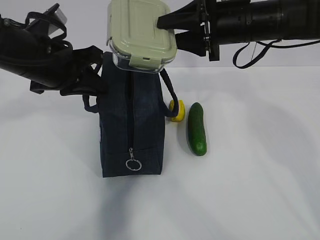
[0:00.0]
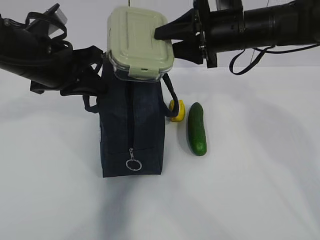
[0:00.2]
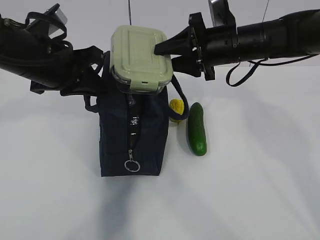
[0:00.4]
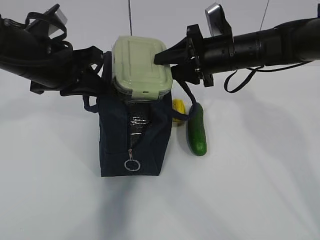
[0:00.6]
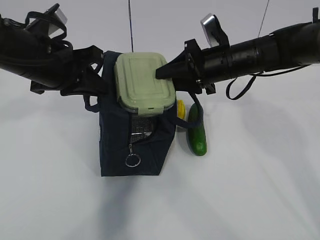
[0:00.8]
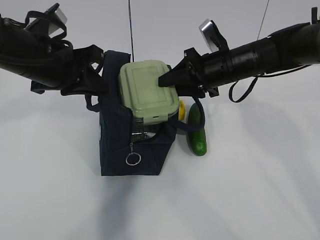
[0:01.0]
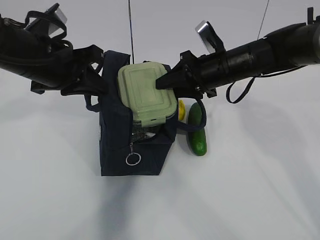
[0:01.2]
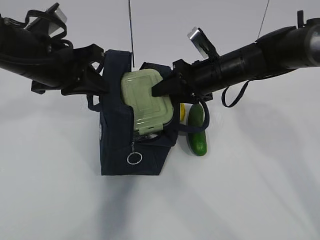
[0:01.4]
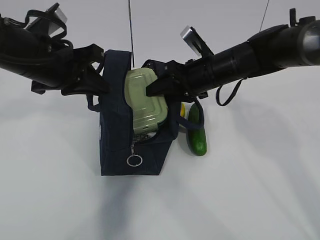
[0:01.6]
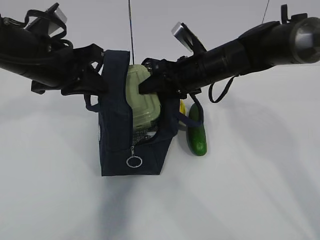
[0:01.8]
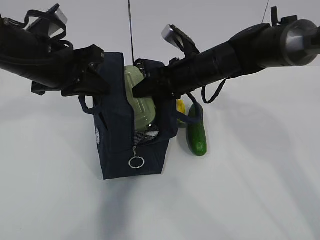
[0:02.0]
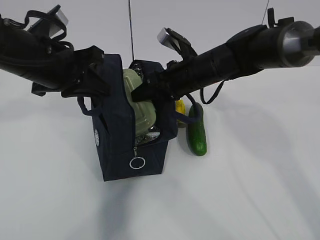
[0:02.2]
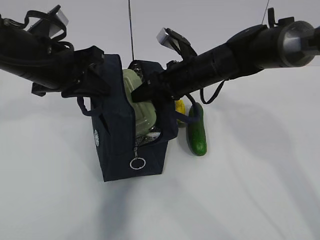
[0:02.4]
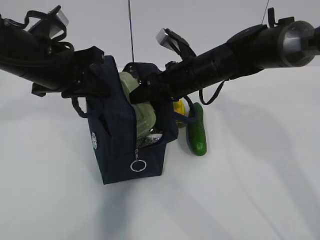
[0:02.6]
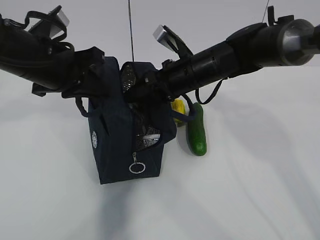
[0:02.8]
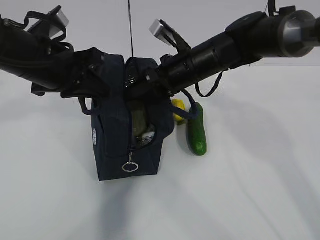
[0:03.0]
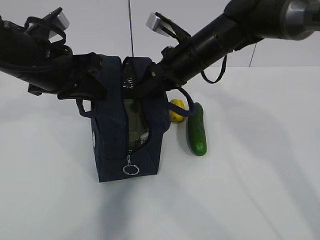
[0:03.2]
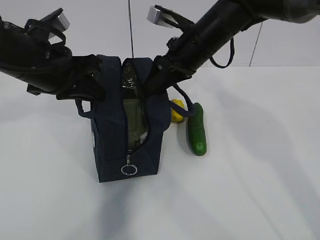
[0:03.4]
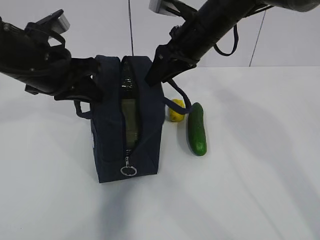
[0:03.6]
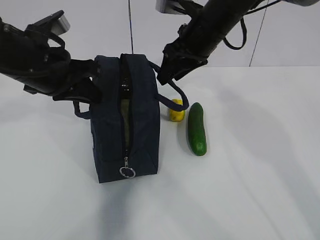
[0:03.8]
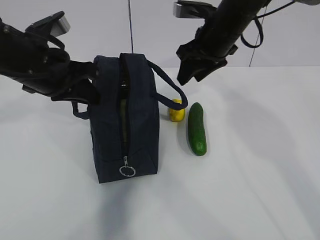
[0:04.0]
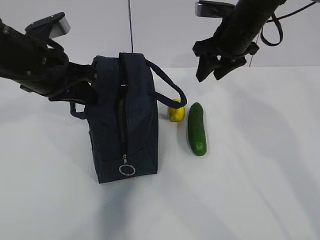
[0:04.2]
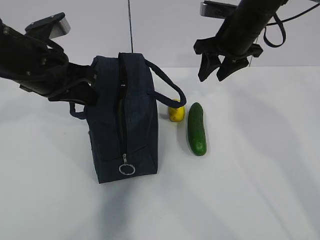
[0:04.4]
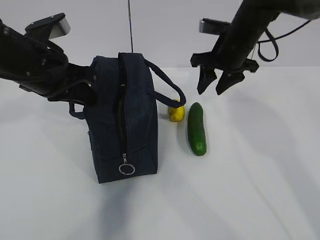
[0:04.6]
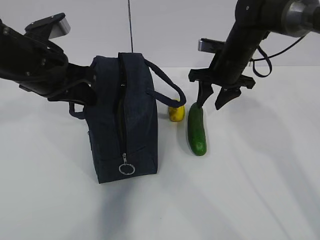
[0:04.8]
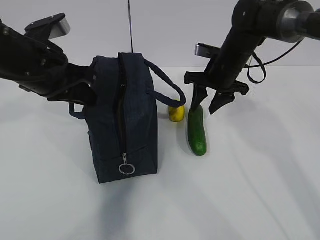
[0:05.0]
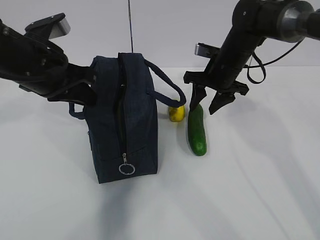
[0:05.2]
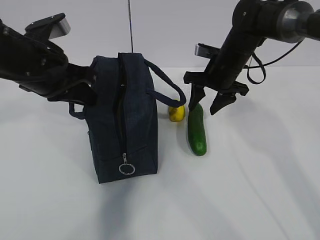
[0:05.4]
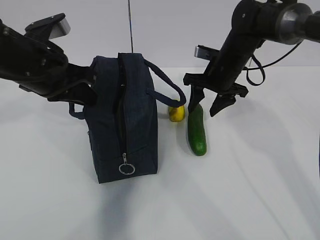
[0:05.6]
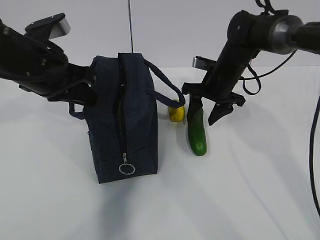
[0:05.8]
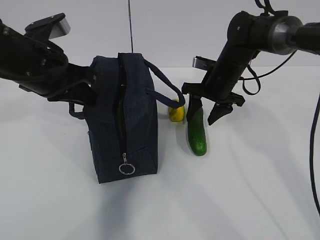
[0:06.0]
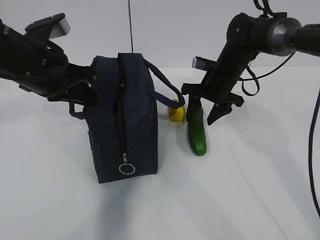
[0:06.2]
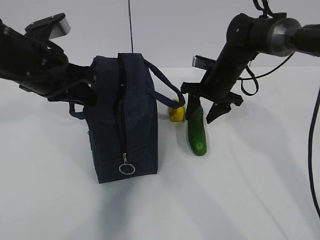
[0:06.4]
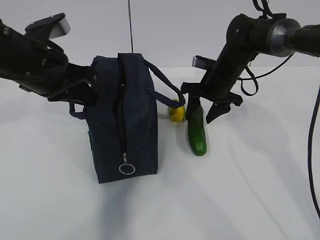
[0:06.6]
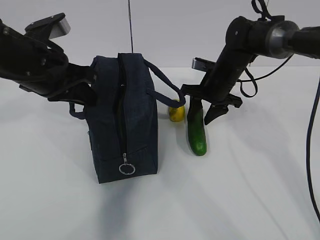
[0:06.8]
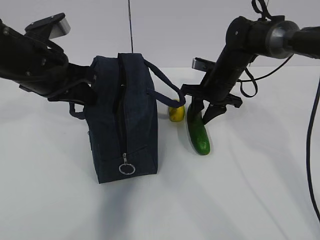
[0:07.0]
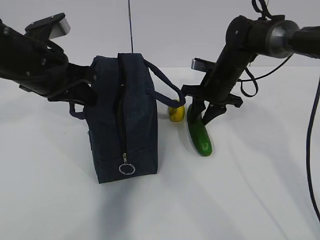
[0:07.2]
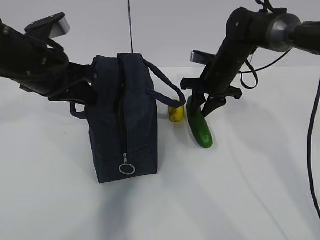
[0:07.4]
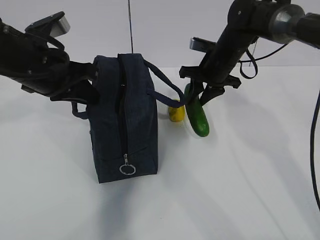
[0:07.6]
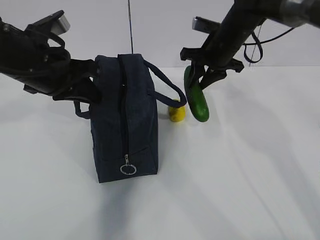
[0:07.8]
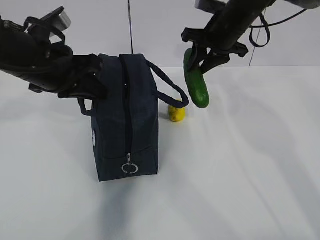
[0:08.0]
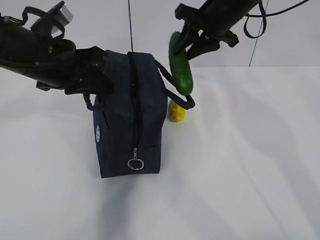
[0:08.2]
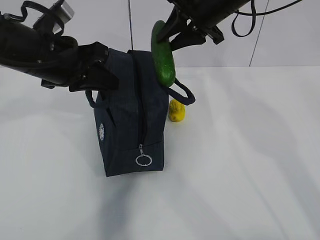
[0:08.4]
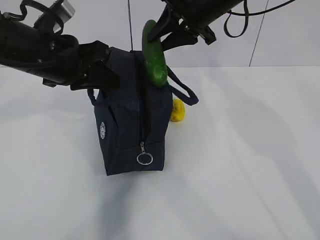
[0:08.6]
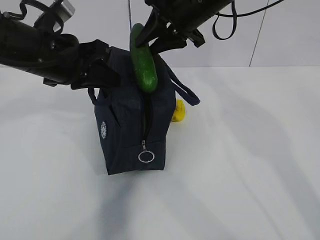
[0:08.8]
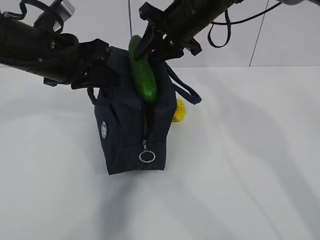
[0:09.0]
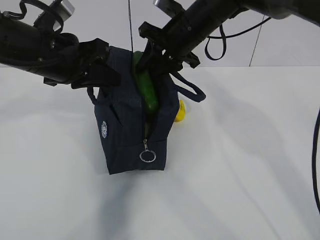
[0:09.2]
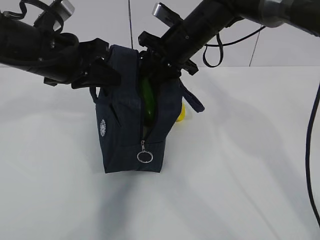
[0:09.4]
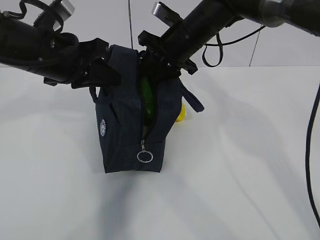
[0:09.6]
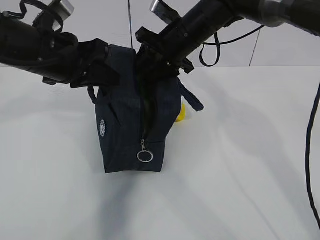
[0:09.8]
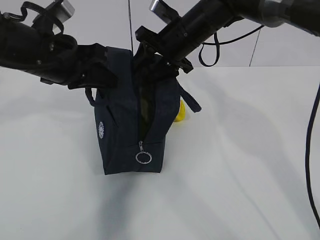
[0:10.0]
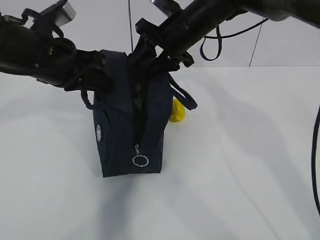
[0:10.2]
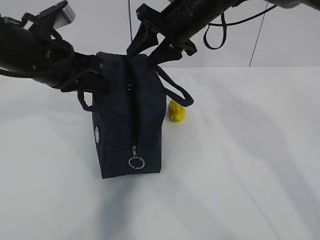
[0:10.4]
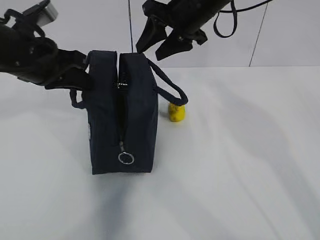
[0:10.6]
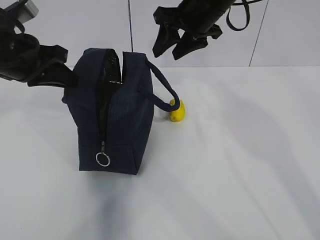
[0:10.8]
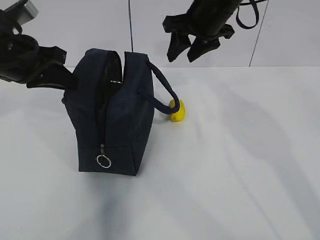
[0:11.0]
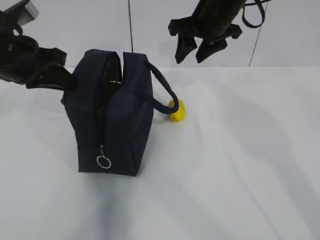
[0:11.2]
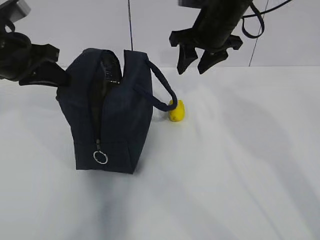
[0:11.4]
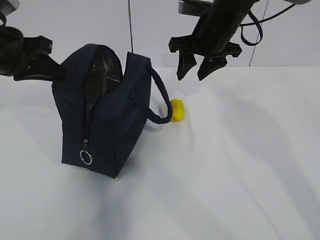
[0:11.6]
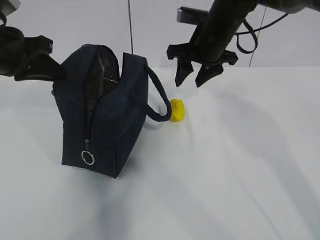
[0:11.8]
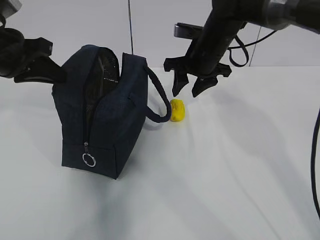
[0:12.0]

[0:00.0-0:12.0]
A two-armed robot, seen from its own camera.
Step, 0:00.0 to 0:01.8: Grab the cucumber with your right hand.
Step, 0:02.0 to 0:04.0: Place it into the bag with your right hand.
Step, 0:04.2 to 0:08.4: Grab the lemon with your right hand.
0:00.0 to 0:01.6: The right gripper heads downward, covering some 10 cm.
0:03.0 to 0:04.4: The right gripper is displaced to the right by roughly 10 cm.
0:04.4 to 0:06.0: The right gripper goes approximately 10 cm downward.
0:06.0 to 0:07.6: The right gripper closes up.
0:07.6 to 0:09.0: The right gripper heads upward and to the left, covering about 10 cm.
0:09.0 to 0:10.4: The grippers move only a little.
0:10.4 to 0:12.0: The left gripper moves to the left, roughly 5 cm. The right gripper heads downward, covering some 5 cm.

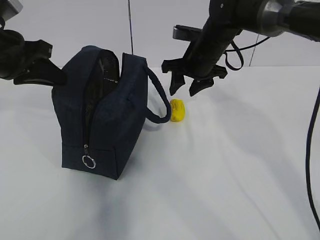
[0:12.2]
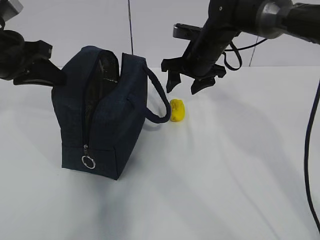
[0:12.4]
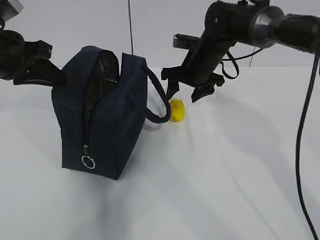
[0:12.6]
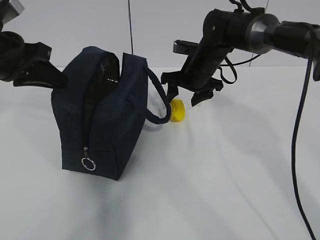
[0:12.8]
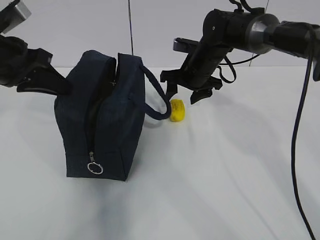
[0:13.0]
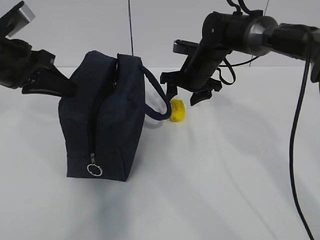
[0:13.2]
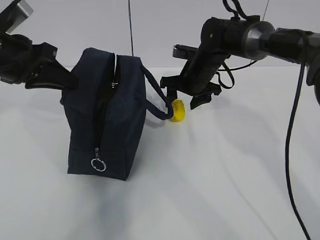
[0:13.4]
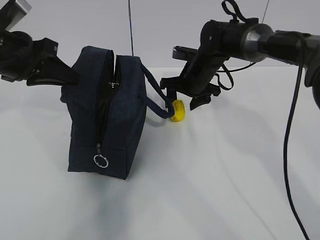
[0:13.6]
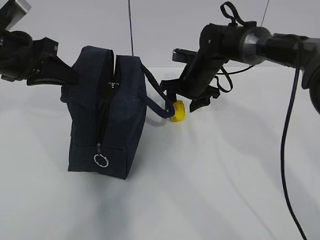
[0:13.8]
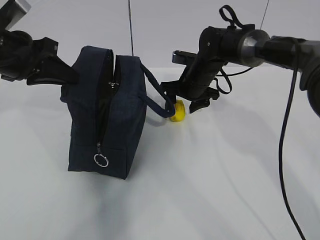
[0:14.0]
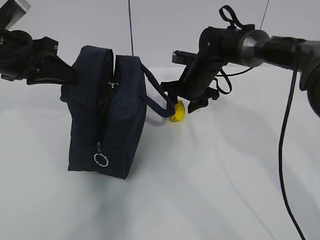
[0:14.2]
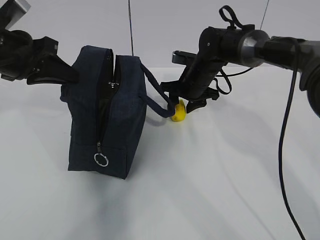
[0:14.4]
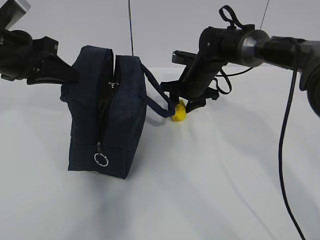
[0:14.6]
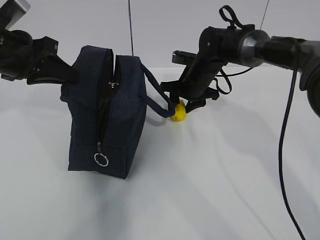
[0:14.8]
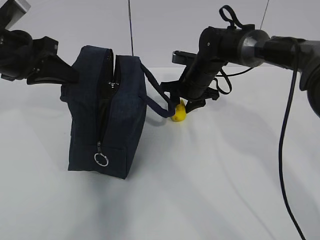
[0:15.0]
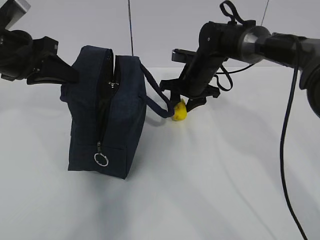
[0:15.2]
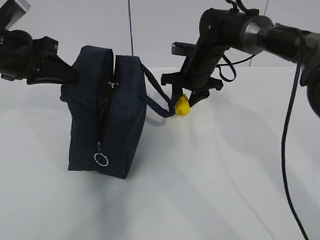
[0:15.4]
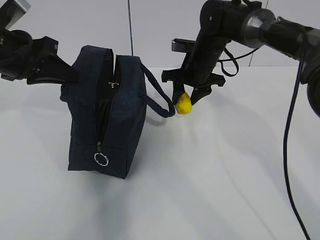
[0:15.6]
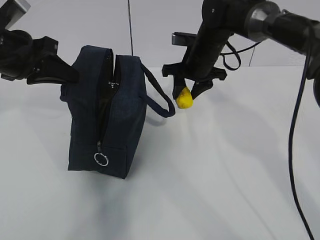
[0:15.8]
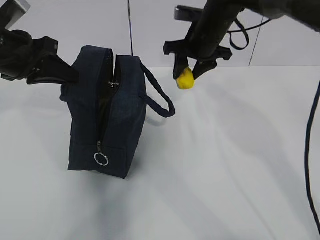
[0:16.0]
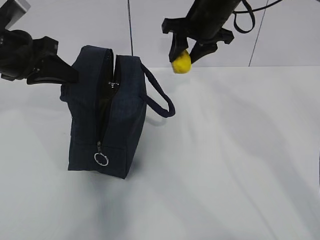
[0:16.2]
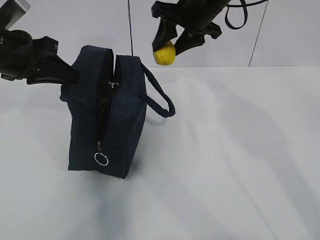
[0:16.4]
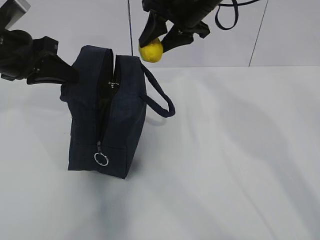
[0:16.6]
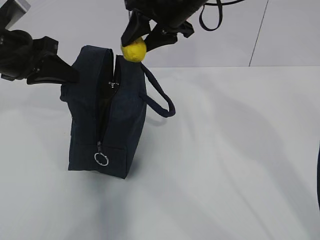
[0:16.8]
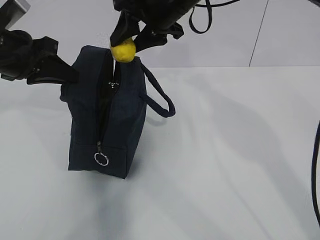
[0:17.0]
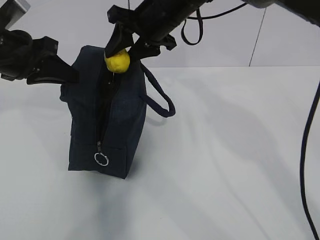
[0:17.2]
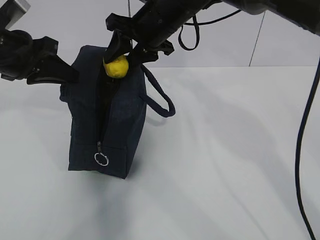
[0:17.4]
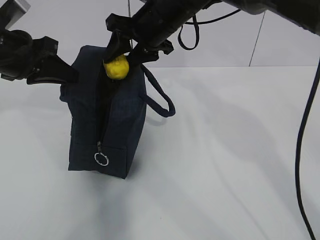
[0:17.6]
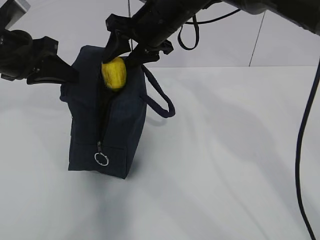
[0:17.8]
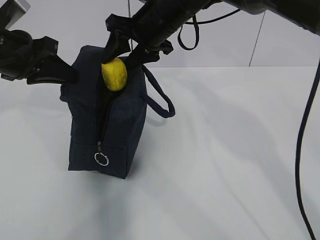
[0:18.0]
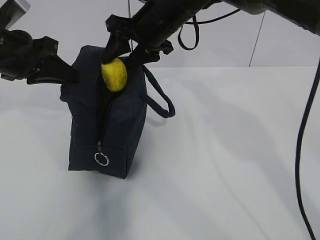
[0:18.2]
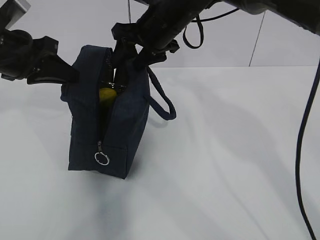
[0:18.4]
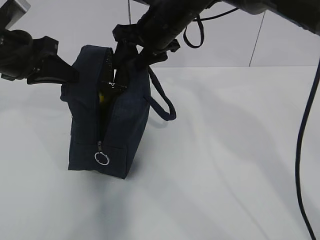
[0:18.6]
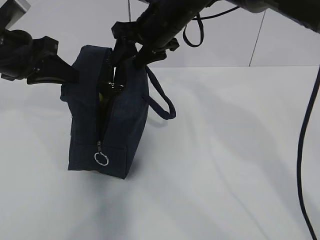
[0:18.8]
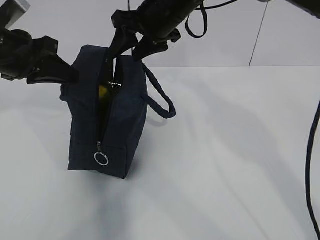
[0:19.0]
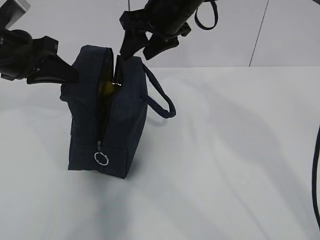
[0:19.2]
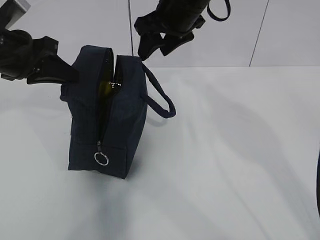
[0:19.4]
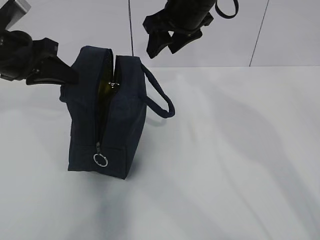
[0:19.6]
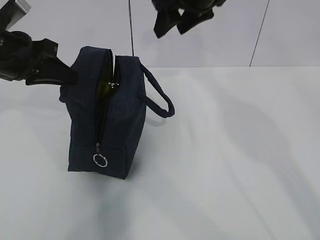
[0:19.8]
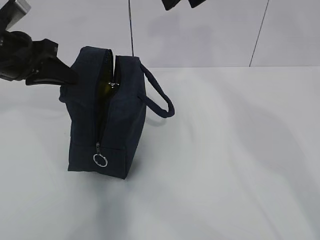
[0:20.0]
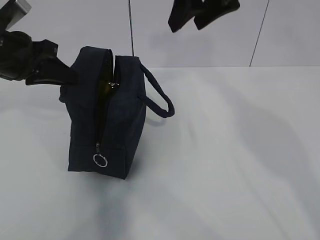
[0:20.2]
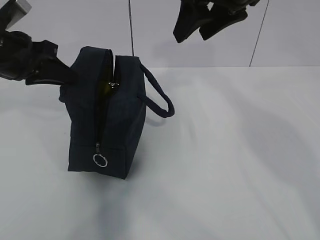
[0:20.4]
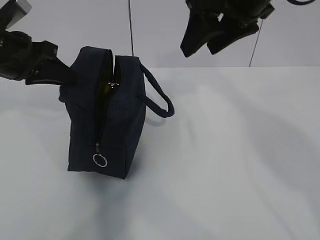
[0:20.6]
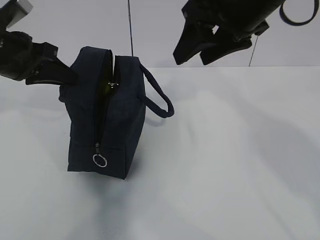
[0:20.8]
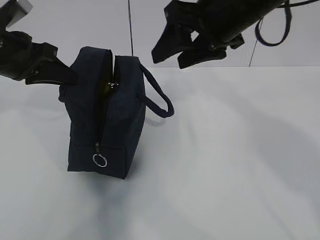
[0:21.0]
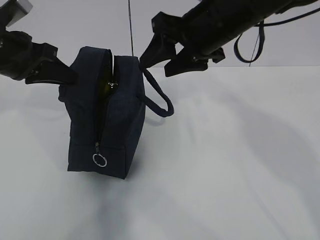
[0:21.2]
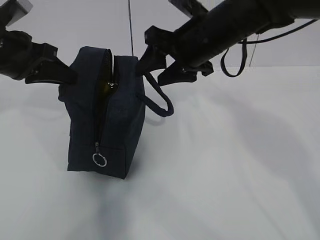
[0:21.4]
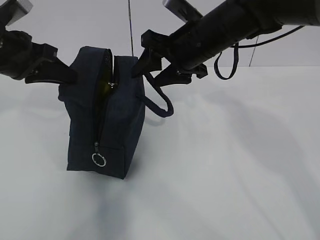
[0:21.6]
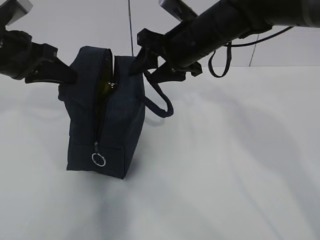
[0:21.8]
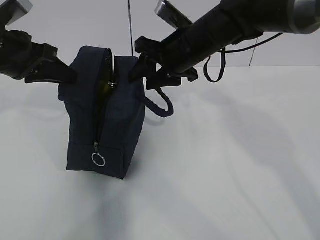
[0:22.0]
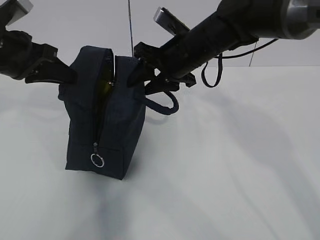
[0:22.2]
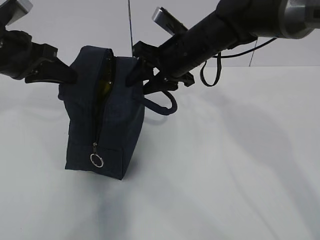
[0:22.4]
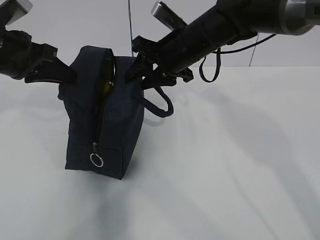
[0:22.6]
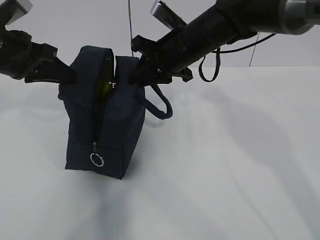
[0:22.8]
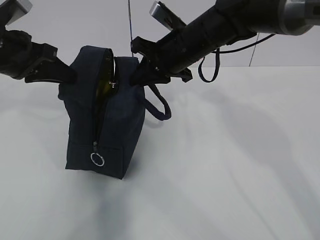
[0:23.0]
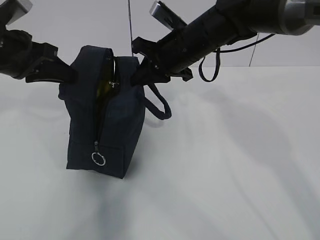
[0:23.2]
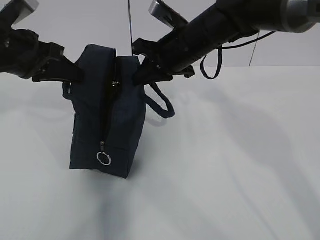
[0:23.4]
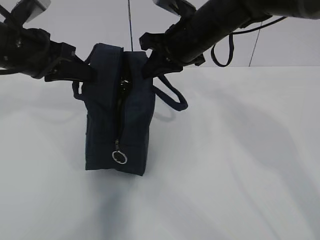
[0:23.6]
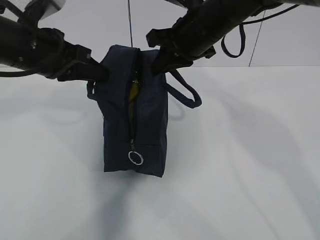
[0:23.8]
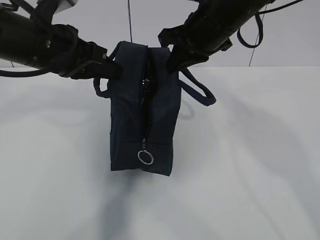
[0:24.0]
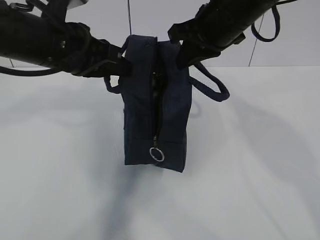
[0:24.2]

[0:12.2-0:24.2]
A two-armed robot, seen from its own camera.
Step, 0:12.2 to 0:15.2: Grab the lunch bag with your right hand.
Step, 0:15.4 to 0:18.8: Move the lunch bag to the right.
0:12.2 to 0:13.8: The right gripper shifts some 5 cm downward.
0:13.8 to 0:15.2: Neither gripper changes place.
0:15.2 to 0:16.6: The right gripper shifts roughly 15 cm upward.
0:16.6 to 0:18.2: The right gripper goes roughly 5 cm to the left.
0:18.2 to 0:19.8: The right gripper is displaced upward and to the right by about 10 cm.
0:19.8 to 0:21.2: The right gripper moves backward and downward, approximately 10 cm.
0:21.2 to 0:22.6: The right gripper goes approximately 10 cm downward and forward.
0:22.6 to 0:24.2: The left gripper heads to the right, covering approximately 10 cm. Meanwhile the right gripper shifts some 5 cm upward, and closes its fingers.
